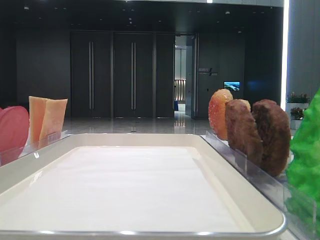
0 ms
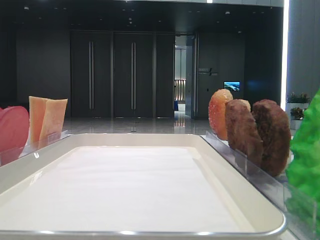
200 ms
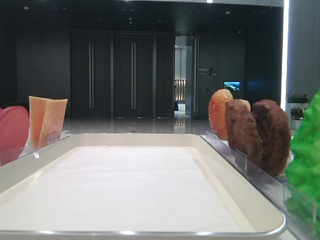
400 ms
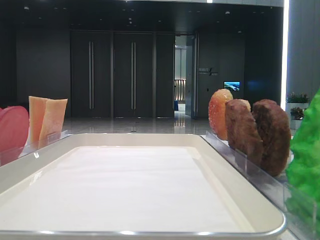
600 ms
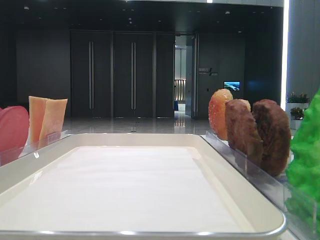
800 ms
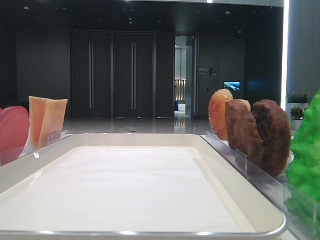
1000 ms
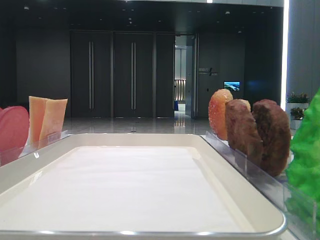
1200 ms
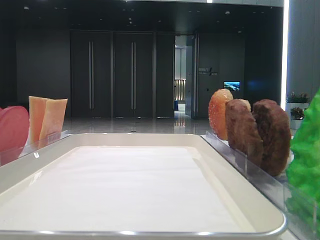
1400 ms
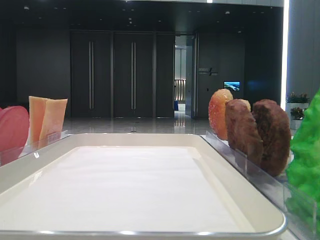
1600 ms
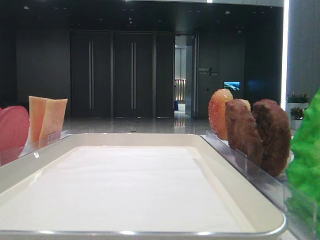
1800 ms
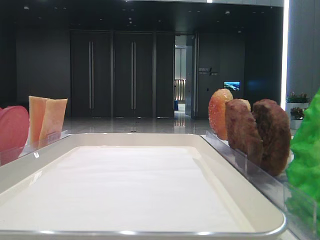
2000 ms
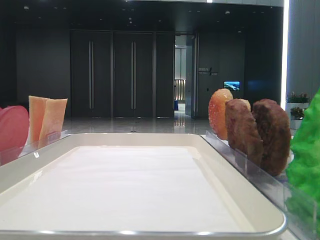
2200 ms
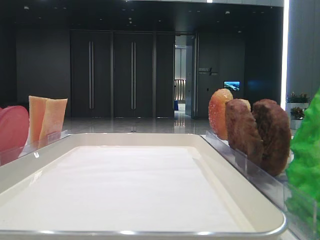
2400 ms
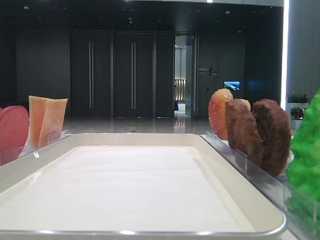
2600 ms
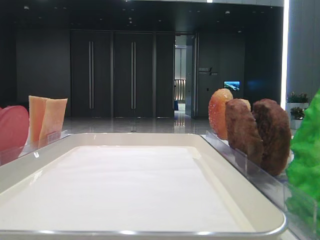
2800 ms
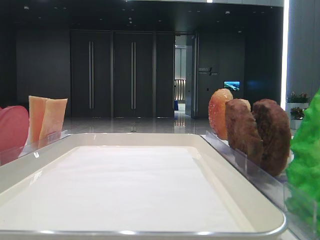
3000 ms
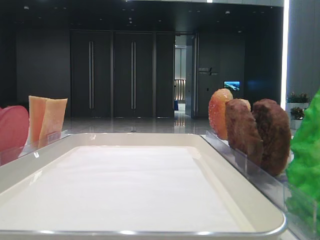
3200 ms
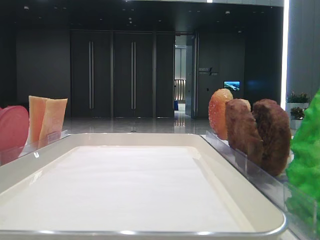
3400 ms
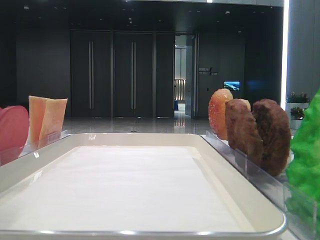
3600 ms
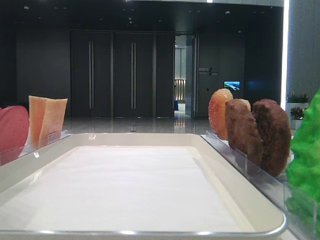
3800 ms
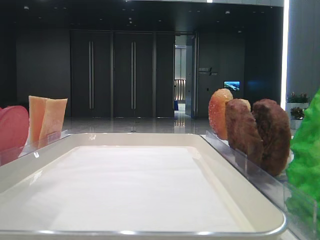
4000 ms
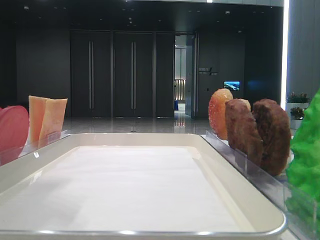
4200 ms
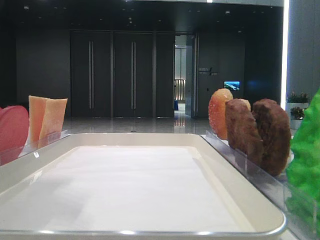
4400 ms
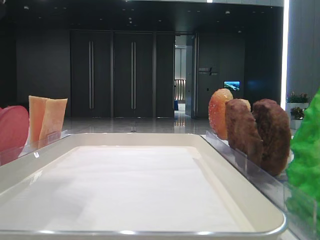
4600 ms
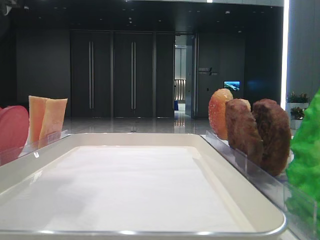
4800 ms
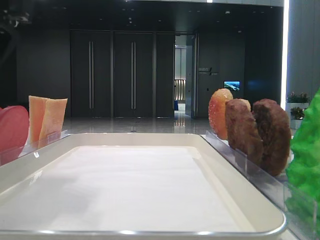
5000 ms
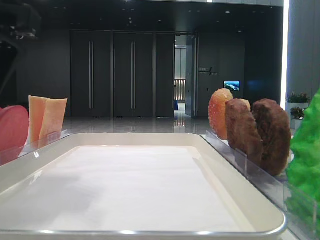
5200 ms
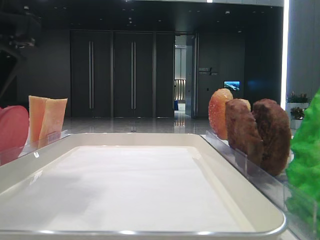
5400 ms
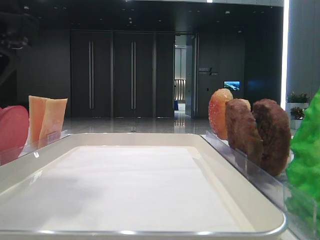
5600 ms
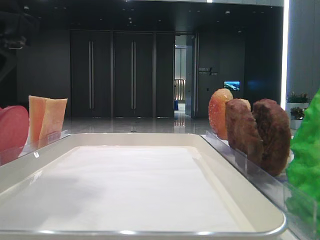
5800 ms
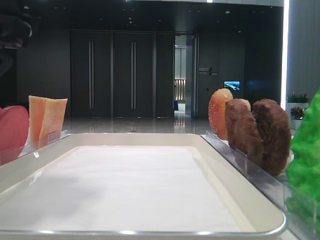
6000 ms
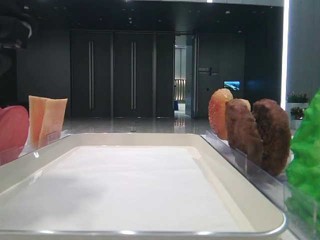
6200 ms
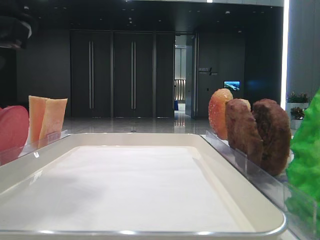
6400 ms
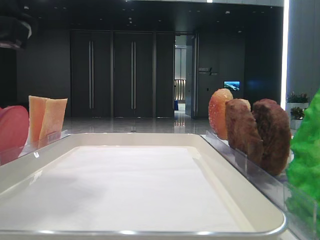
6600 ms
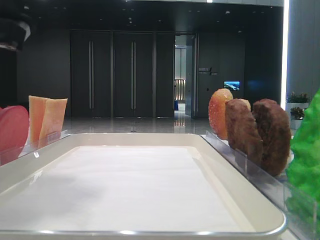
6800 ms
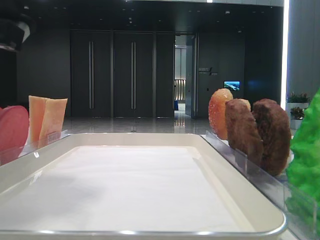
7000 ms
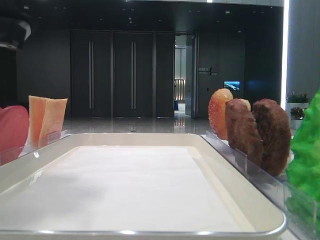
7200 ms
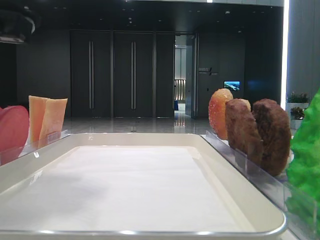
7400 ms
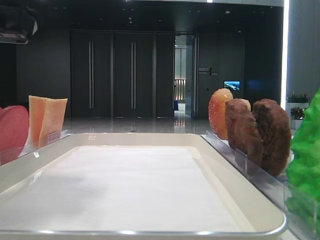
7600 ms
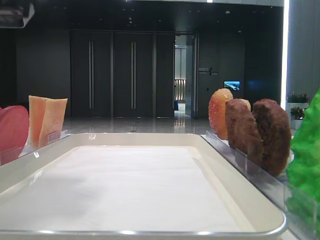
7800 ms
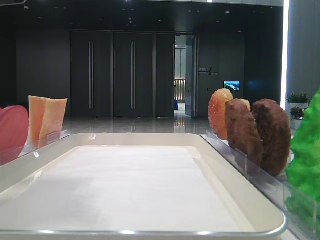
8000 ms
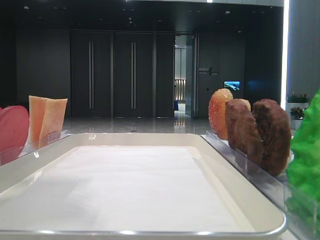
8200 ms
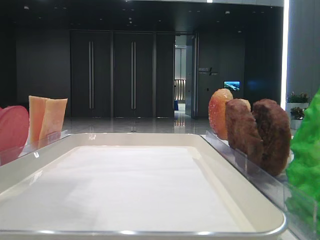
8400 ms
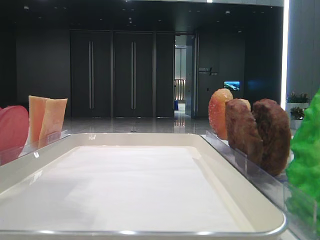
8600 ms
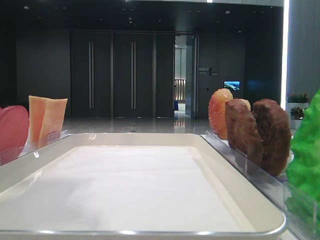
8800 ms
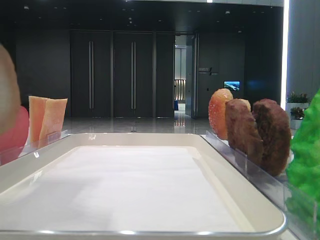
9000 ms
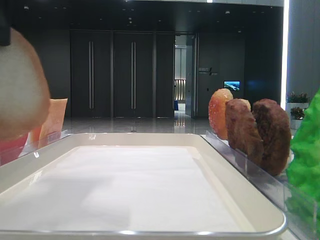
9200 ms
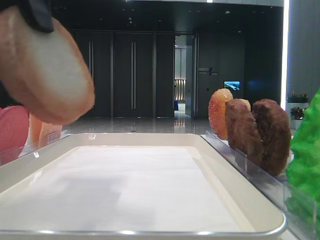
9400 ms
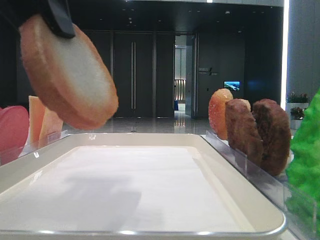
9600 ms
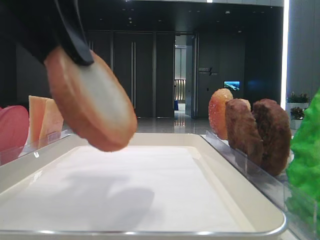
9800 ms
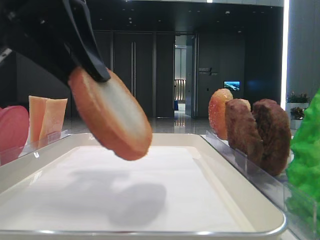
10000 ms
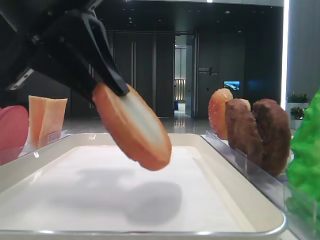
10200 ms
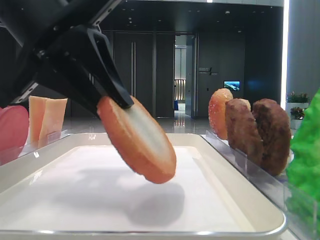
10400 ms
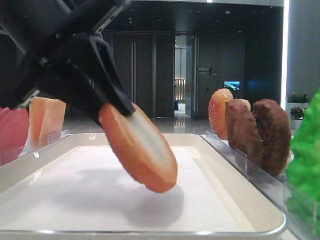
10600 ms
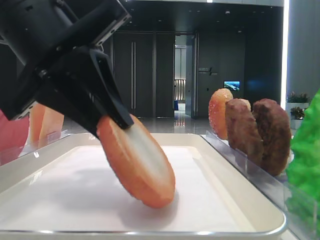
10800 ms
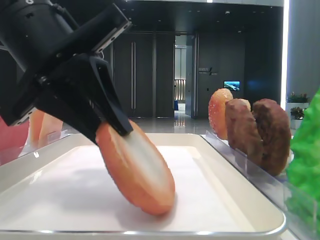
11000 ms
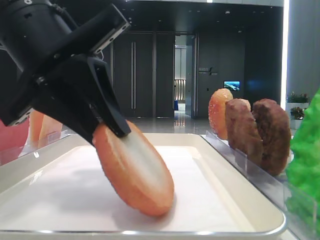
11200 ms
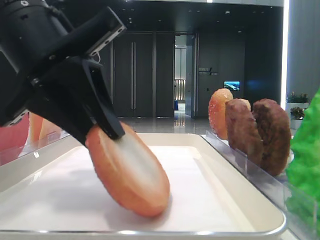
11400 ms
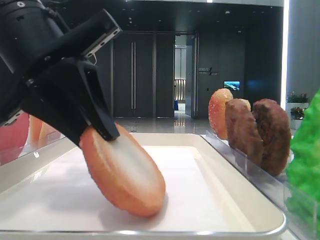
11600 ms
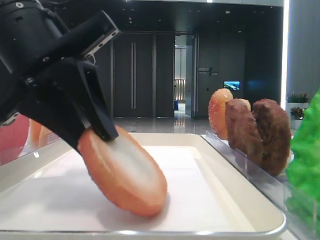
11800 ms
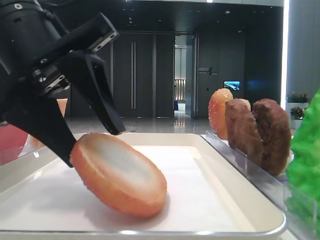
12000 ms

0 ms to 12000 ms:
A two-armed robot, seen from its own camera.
3000 ms to 4400 ms: The left gripper shifts some 15 cm to the right.
7600 ms to 9000 ms: The left gripper is displaced upward by about 5 cm.
9000 ms to 10400 ms: The left gripper moves downward, approximately 10 cm.
10400 ms to 12000 ms: The left gripper opens its fingers.

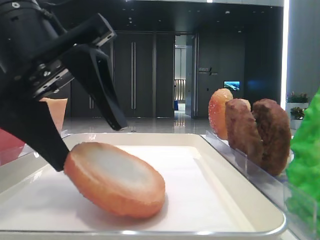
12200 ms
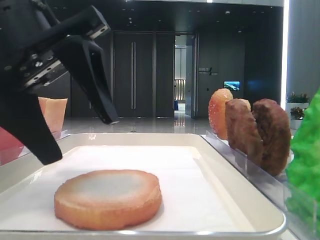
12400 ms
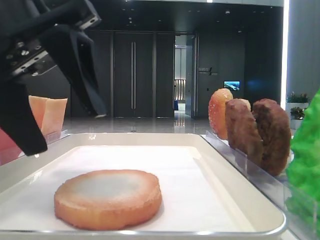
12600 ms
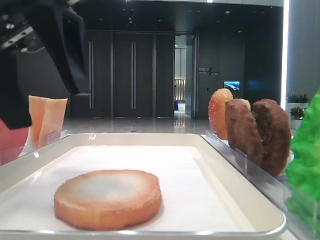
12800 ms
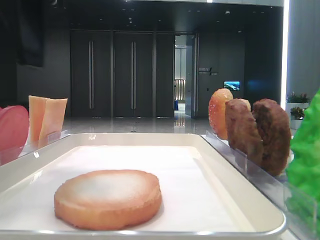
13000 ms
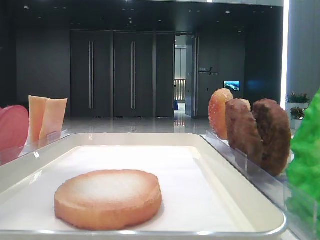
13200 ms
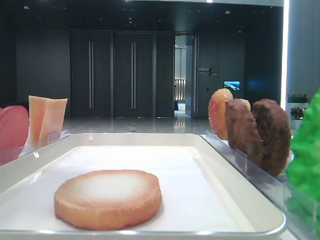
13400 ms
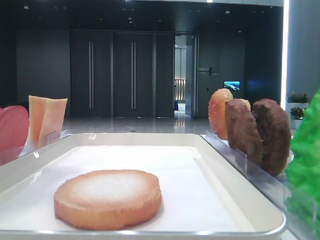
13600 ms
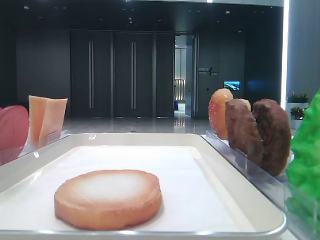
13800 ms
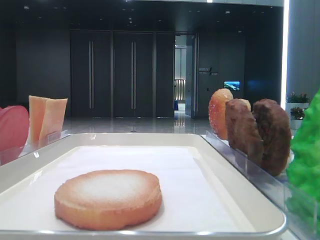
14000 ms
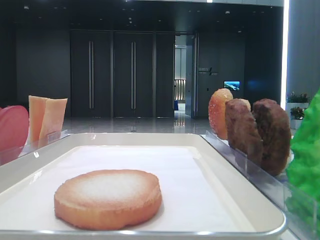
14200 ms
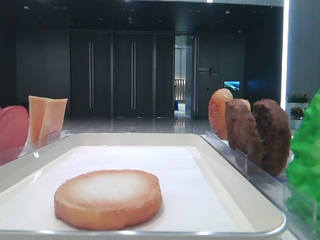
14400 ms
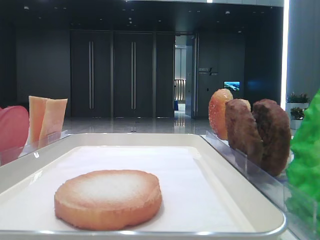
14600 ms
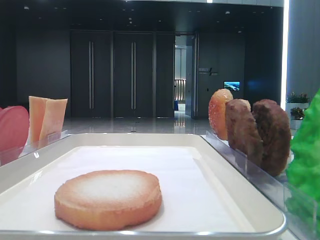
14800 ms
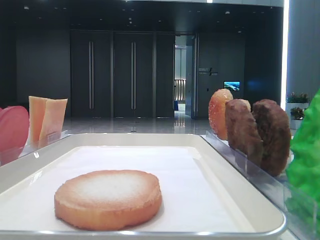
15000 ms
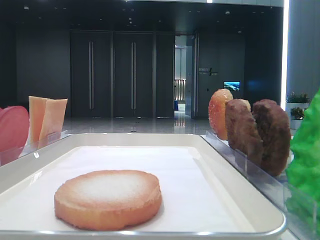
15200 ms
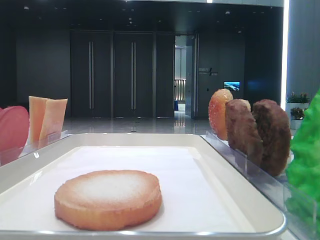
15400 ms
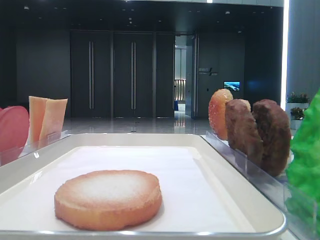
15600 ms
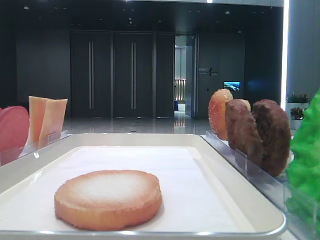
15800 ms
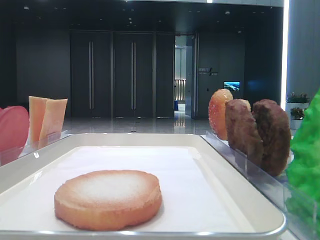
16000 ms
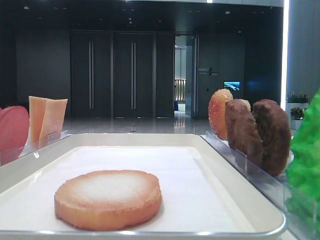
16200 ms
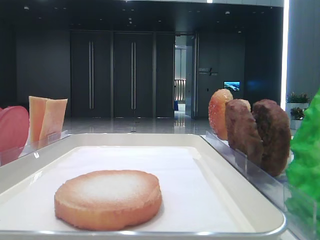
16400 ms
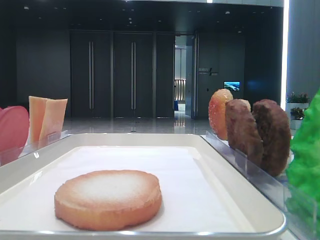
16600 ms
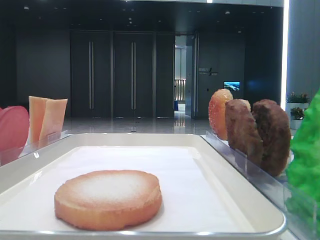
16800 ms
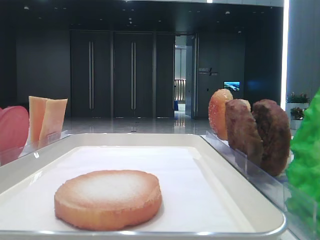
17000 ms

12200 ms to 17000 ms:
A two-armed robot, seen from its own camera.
12200 ms to 13800 ms: The left gripper heads to the left and upward, covering roughly 20 cm.
15400 ms to 17000 ms: Both grippers stay put.

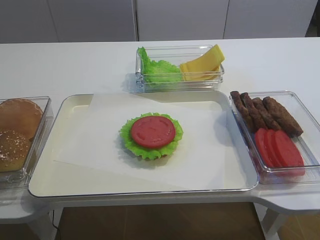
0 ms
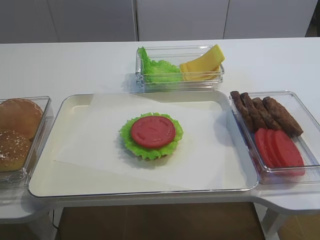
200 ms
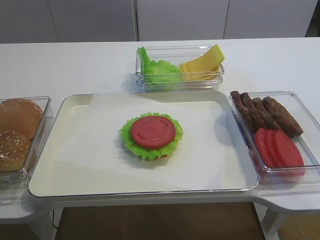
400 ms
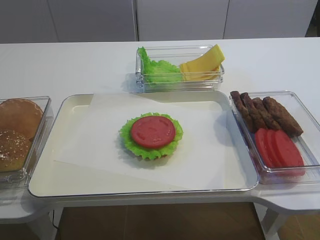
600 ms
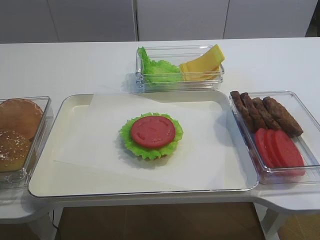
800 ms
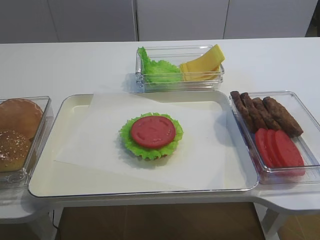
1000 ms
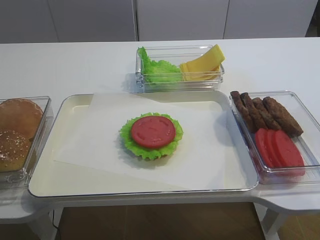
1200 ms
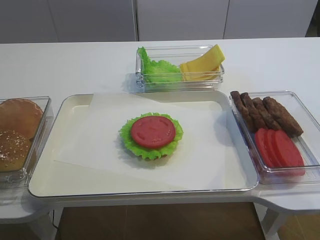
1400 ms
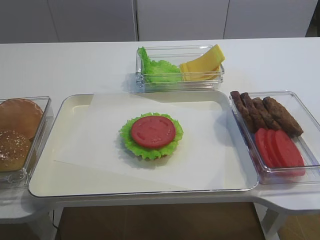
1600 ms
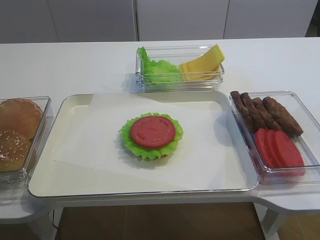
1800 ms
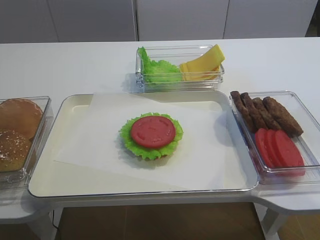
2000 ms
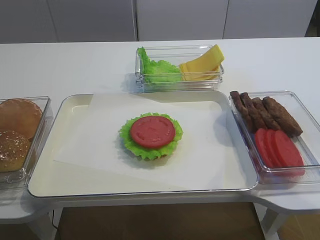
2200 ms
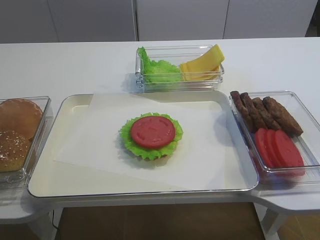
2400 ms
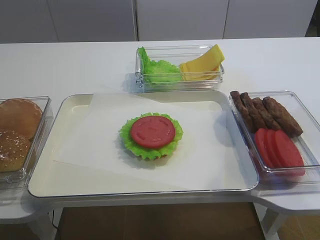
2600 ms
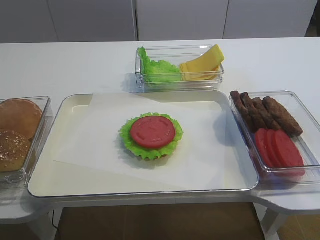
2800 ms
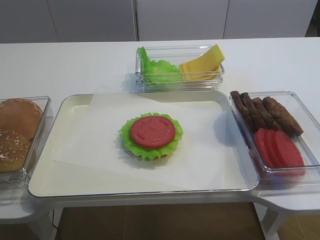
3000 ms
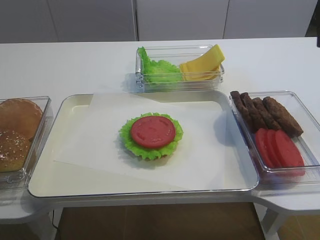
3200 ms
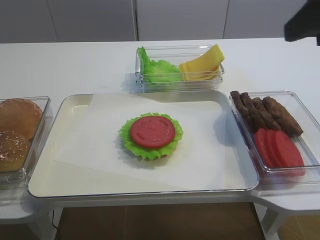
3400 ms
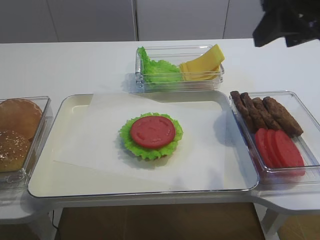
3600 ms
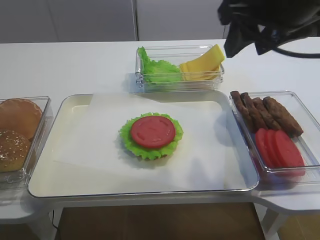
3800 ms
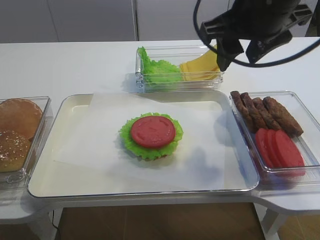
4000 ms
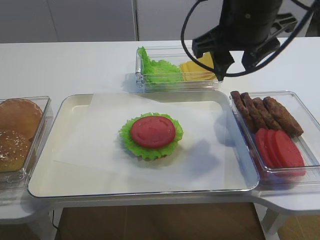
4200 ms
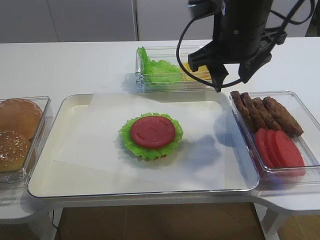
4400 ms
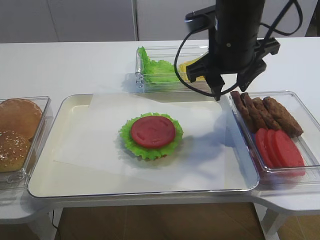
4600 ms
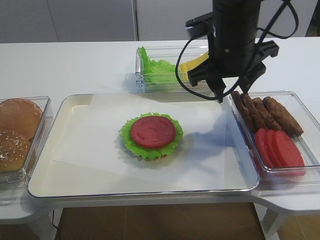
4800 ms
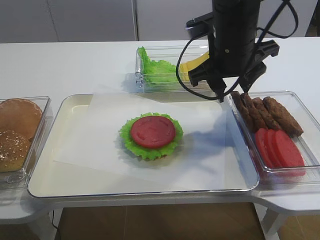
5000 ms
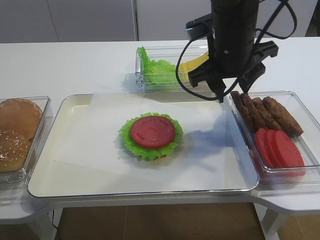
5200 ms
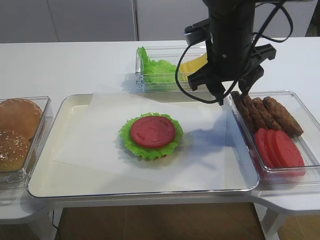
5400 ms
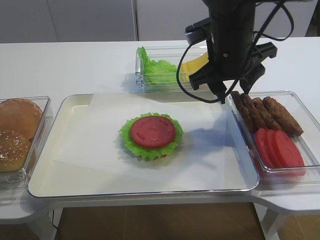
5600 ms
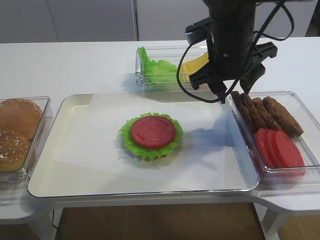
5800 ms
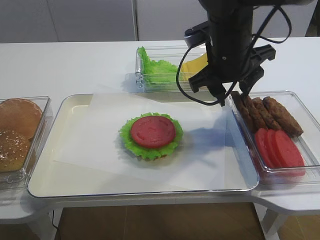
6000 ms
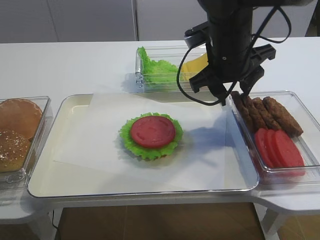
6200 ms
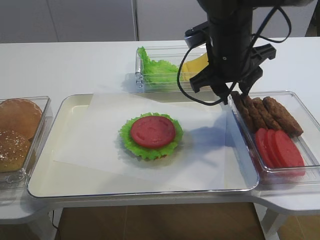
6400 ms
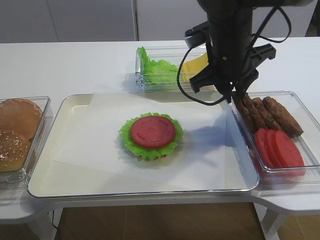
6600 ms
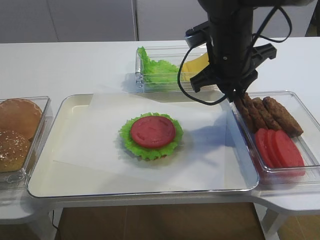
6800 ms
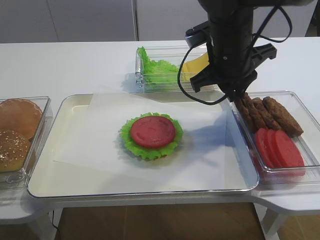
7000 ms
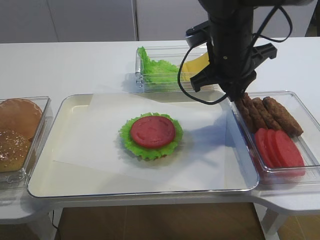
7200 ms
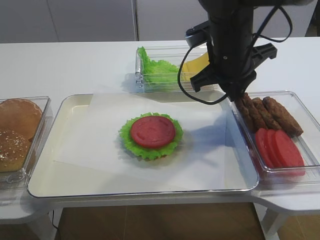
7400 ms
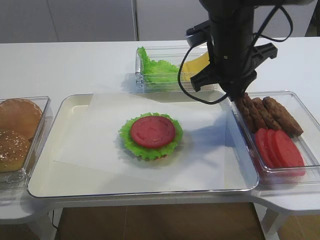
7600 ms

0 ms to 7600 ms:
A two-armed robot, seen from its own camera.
1600 ms to 3000 ms: The right gripper travels forward and upward by approximately 15 cm.
3000 ms to 4600 ms: The right gripper shifts about 25 cm forward and to the left.
4600 ms to 6000 ms: The grippers stay close to where they were, moving slightly.
6000 ms to 7600 ms: The right gripper closes its fingers.
